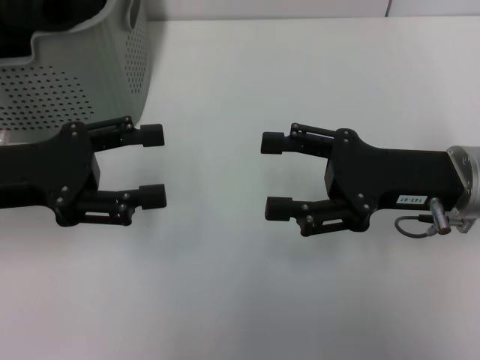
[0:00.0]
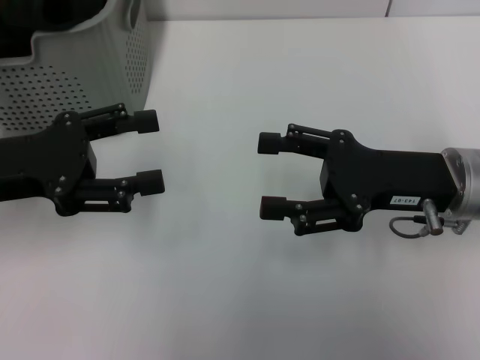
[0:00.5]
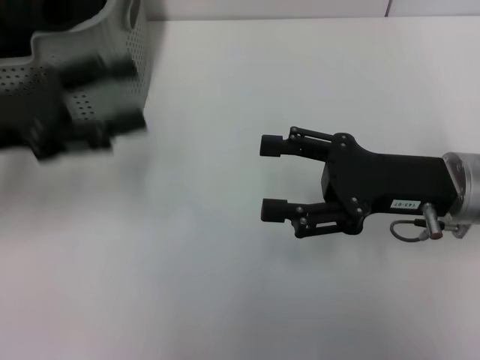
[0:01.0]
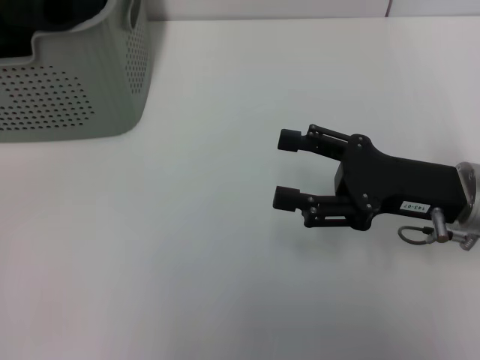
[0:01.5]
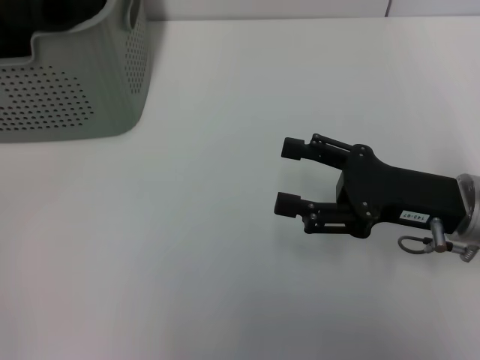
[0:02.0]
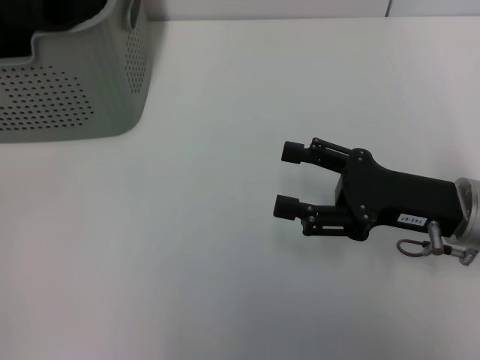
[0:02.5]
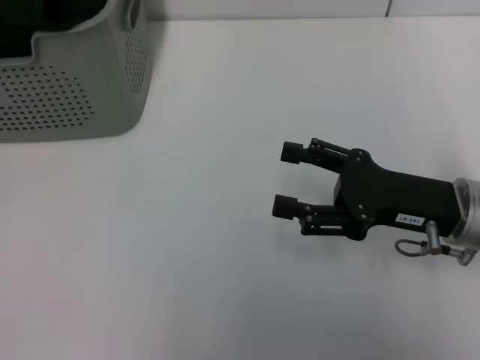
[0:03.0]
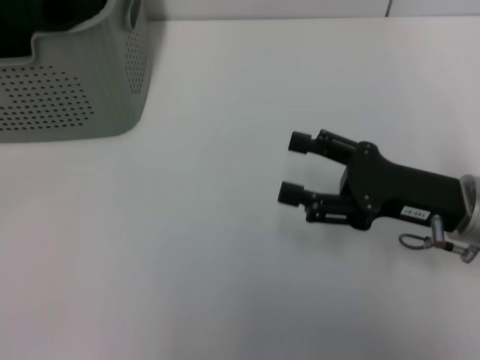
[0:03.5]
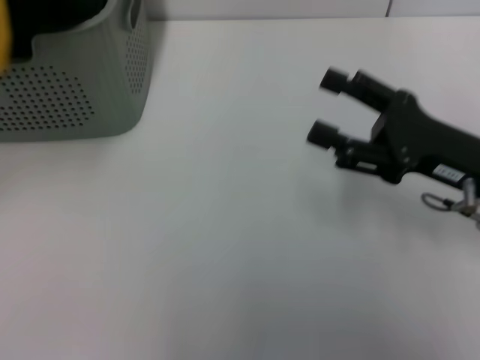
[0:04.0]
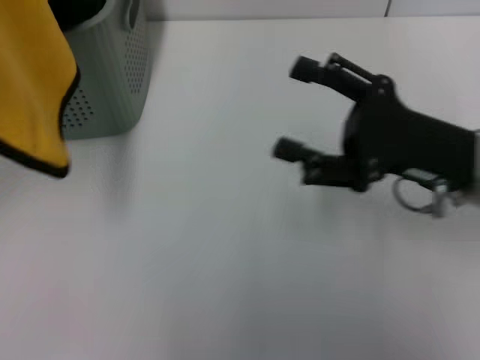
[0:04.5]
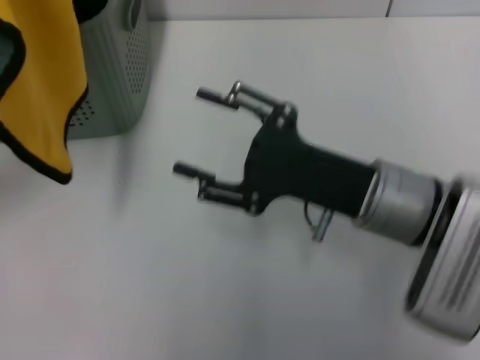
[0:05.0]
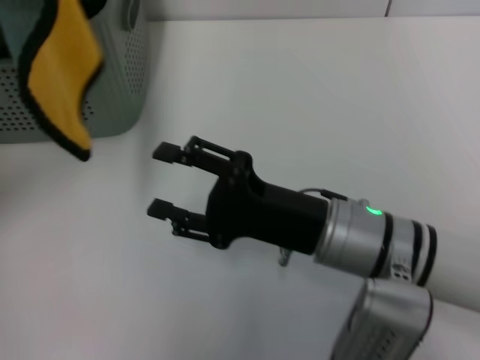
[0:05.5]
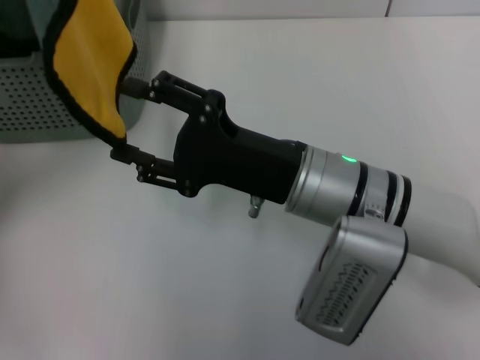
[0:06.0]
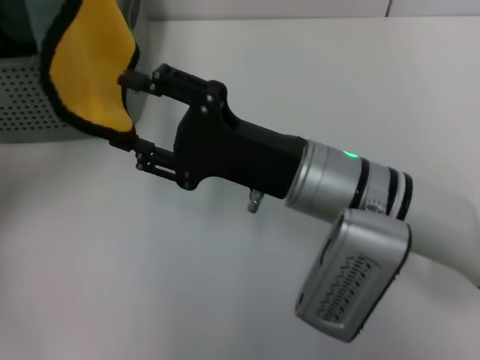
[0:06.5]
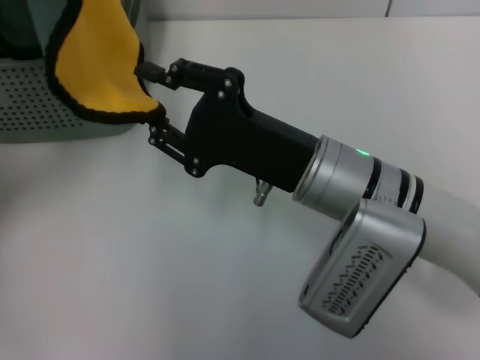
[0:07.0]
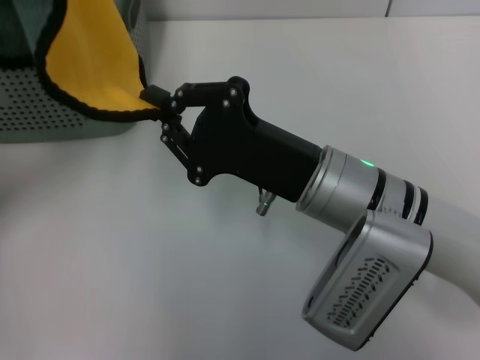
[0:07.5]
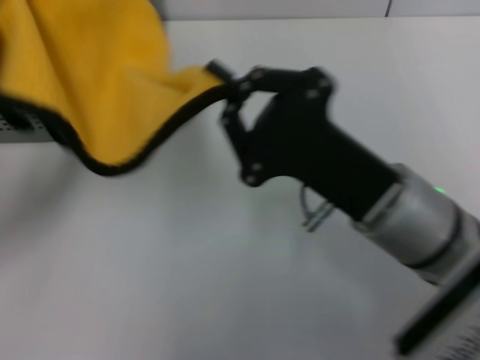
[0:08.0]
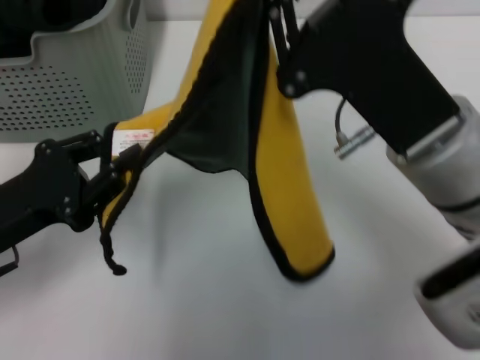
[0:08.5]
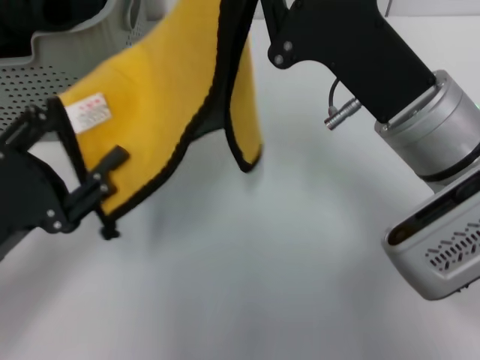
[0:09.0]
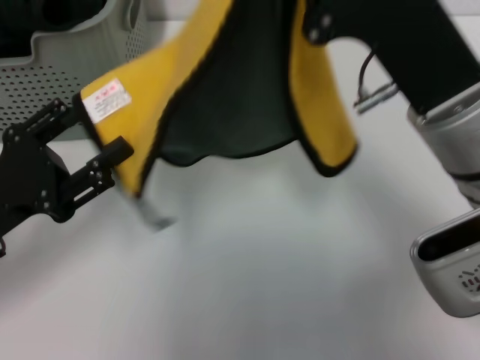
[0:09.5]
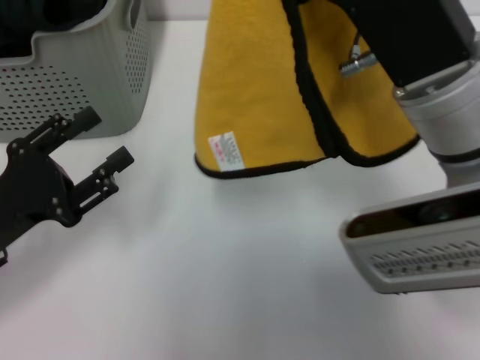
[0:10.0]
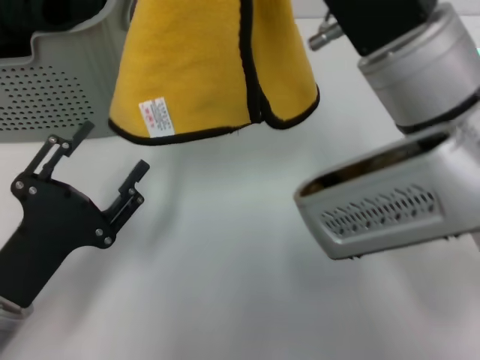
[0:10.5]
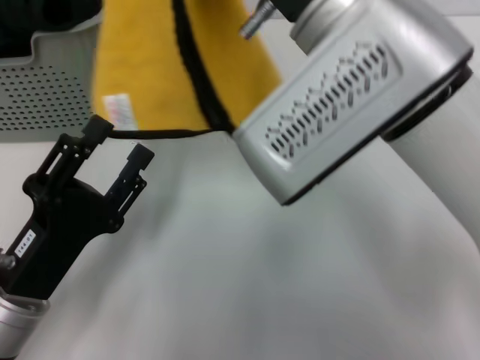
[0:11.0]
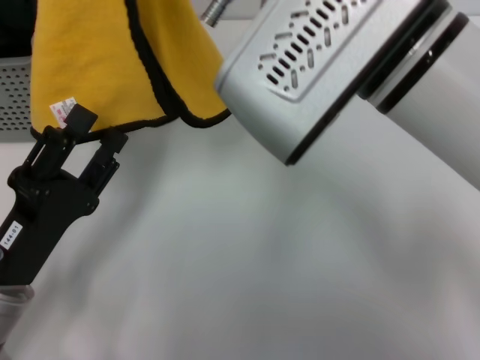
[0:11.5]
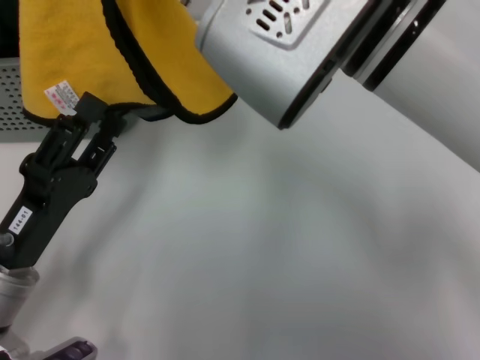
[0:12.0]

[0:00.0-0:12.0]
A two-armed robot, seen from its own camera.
Task of the whole recording: pick up the towel from the storage box and lay it flat on the table.
Step, 0:00.0 to 0:03.0: Pick up a towel with the left gripper.
Step, 0:03.5 to 0:07.5: Spread the towel flat with the left gripper.
0:00.0 to 0:02.0: The left gripper is displaced forward, to the left and upward by about 15 cm.
0:02.0 to 0:04.0: The left gripper shifts approximately 10 cm backward, and closes.
0:04.0 to 0:06.0: The right gripper goes approximately 15 cm to the left, while the left gripper goes approximately 10 cm to the right.
0:06.0 to 0:08.0: The right gripper shifts about 5 cm to the right, and closes. Meanwhile the left gripper moves downward and backward, some 10 cm.
0:08.0 to 0:10.0: The left gripper shifts approximately 5 cm downward, and opens. The right gripper goes approximately 5 cm upward.
0:10.0 to 0:12.0: The right gripper goes some 10 cm upward and to the left. The left gripper moves to the right, about 5 cm.

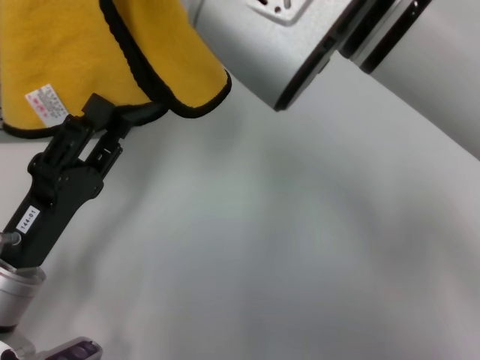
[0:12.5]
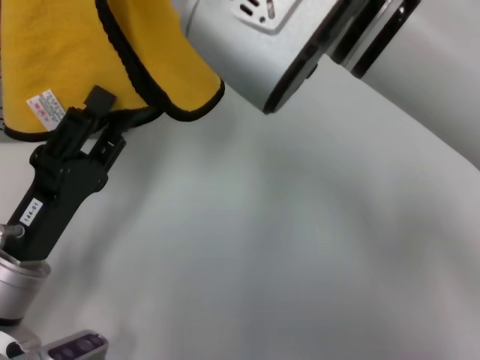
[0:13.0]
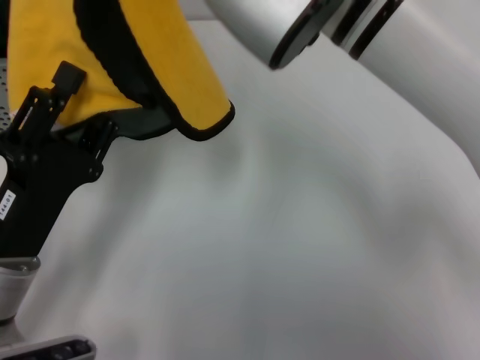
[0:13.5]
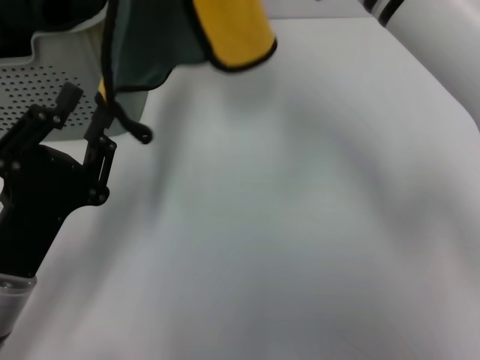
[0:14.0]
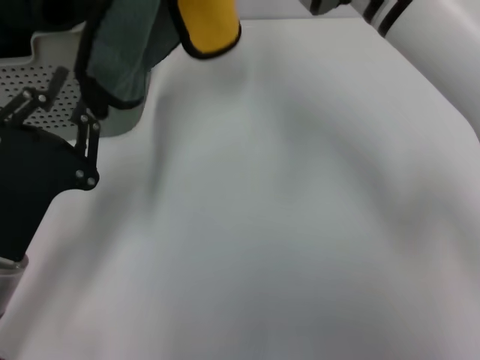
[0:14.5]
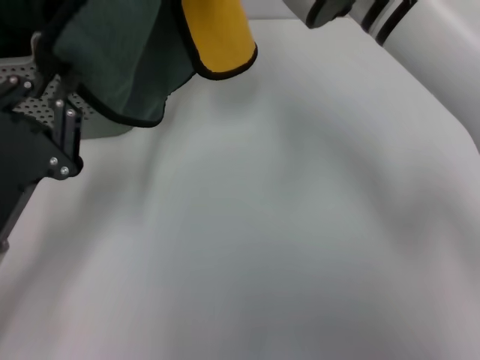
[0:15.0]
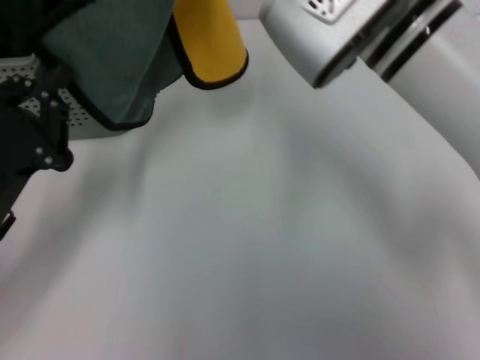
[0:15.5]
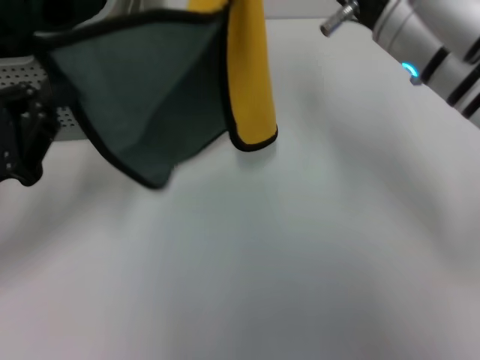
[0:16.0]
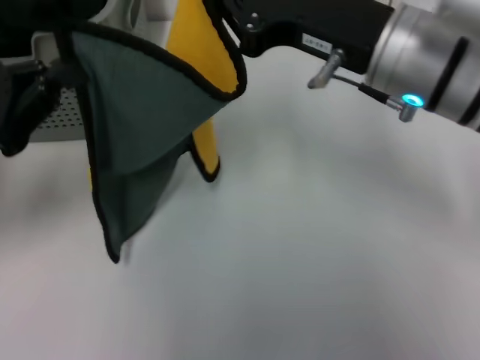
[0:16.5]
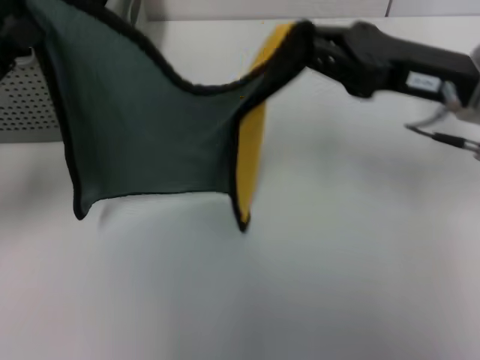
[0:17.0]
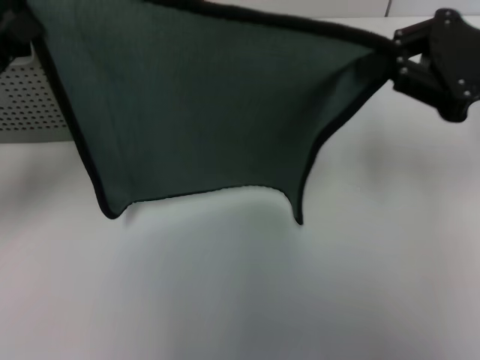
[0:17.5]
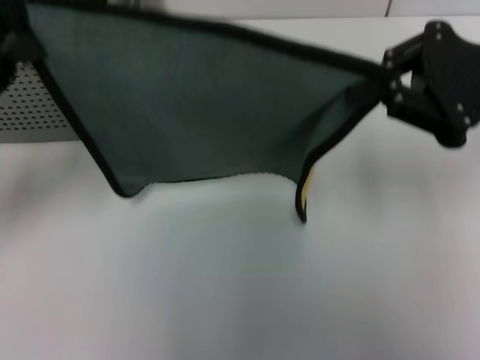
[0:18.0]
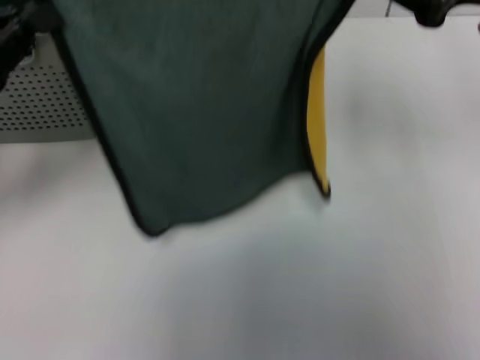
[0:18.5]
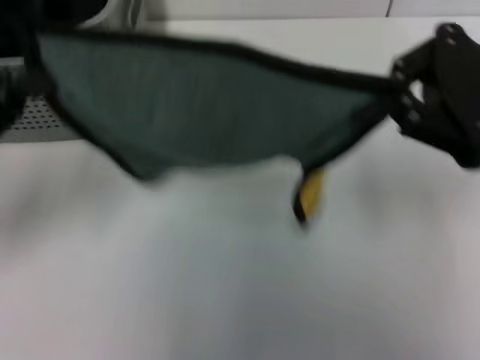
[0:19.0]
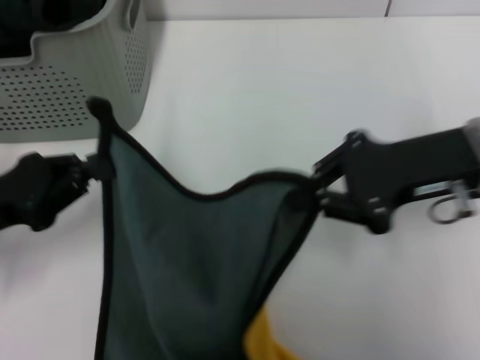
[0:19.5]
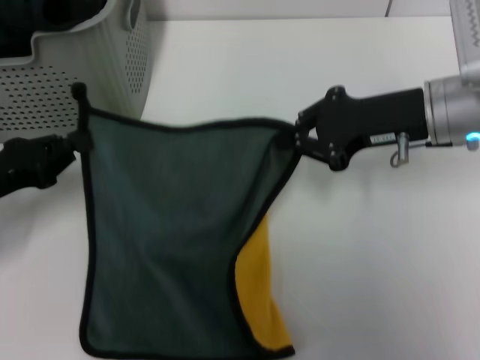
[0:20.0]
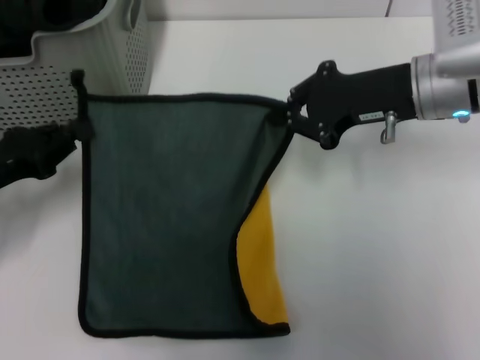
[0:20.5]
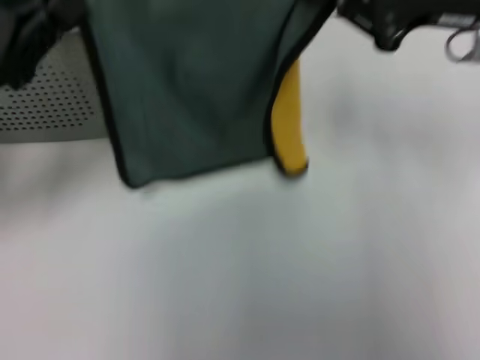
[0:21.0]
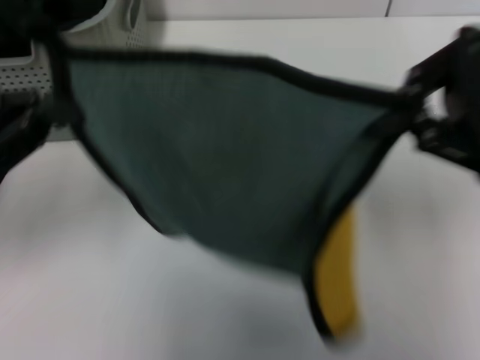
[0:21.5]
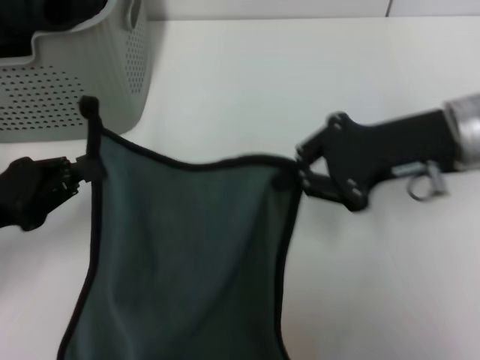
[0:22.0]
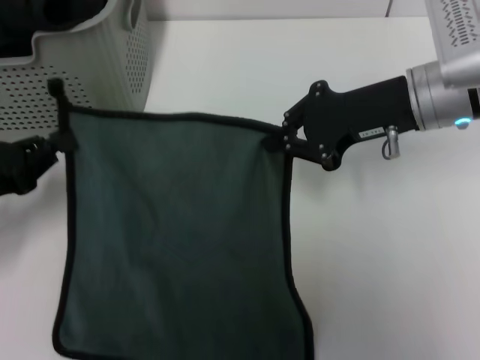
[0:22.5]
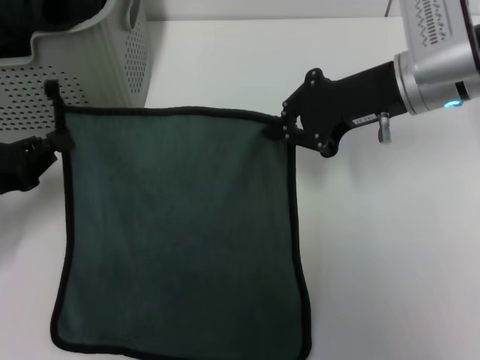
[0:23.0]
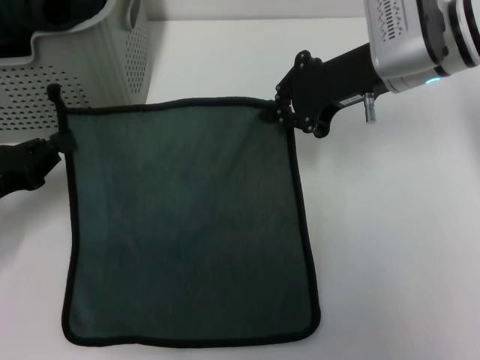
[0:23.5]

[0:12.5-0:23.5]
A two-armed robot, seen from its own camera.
Task of the whole recording: pick up the towel from the storage box and lay it flat on the table.
0:12.5 to 0:14.5: The left gripper closes. The right gripper heads forward, covering about 5 cm.
0:14.5 to 0:16.0: The right gripper is displaced to the right by about 5 cm, while the left gripper heads to the left, covering about 5 cm.
0:16.0 to 0:18.0: The right gripper travels to the right by roughly 15 cm. Meanwhile the left gripper moves approximately 5 cm.
0:18.0 to 0:20.0: The right gripper heads to the left and downward, covering about 10 cm; the left gripper travels downward by approximately 5 cm.
0:20.0 to 0:21.5: The left gripper heads upward, covering about 5 cm. Meanwhile the right gripper travels upward, backward and to the right by some 15 cm.
0:21.5 to 0:23.5: The right gripper goes approximately 20 cm forward, to the left and downward, while the left gripper travels downward by some 10 cm.

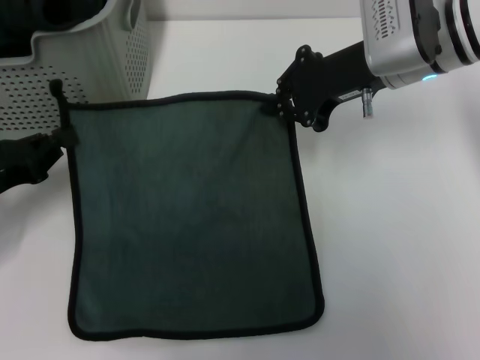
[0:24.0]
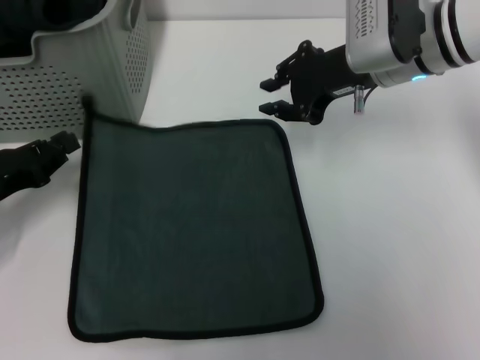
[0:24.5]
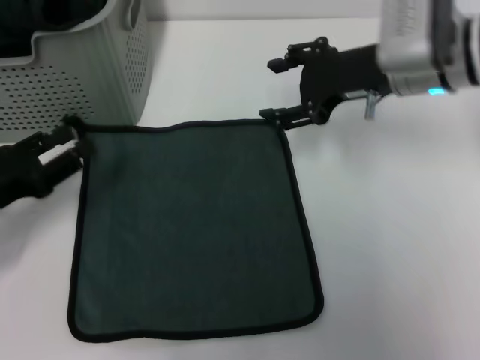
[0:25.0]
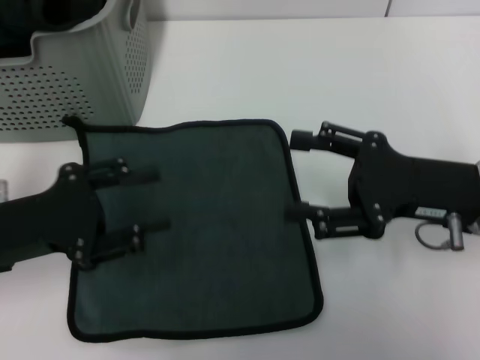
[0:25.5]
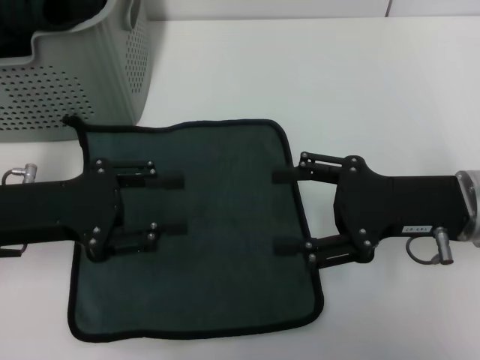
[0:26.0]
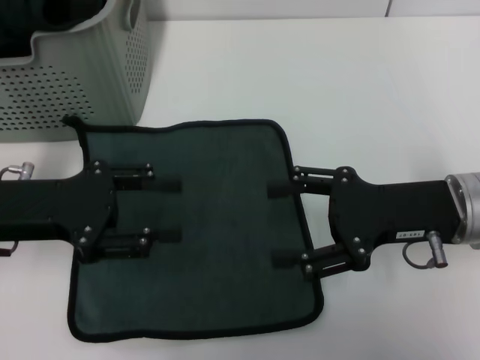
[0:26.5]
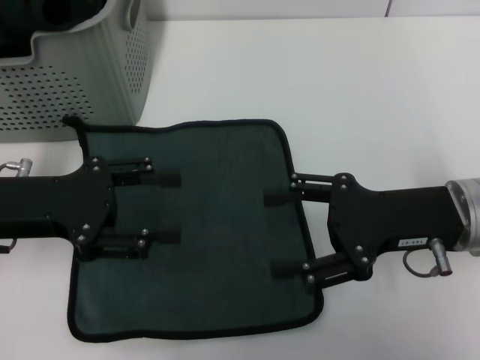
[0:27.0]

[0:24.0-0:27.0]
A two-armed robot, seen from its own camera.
Task of the whole recording: pick up the towel from the storage box and lay it flat on the table.
0:24.0 to 0:25.5: The right gripper moves backward, to the right and downward, roughly 15 cm, and opens its fingers. Meanwhile the left gripper shifts some 5 cm to the right, and opens its fingers.
0:25.5 to 0:27.0: The grippers make only small movements.
